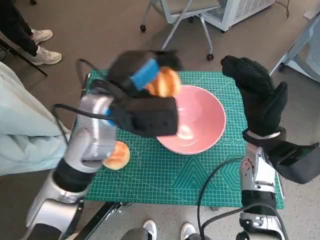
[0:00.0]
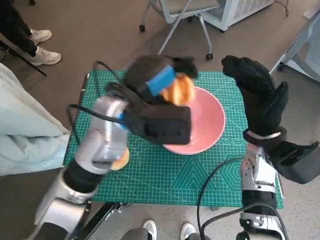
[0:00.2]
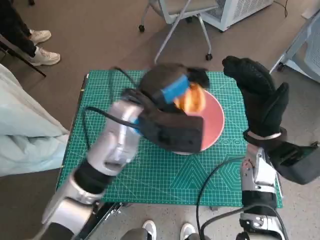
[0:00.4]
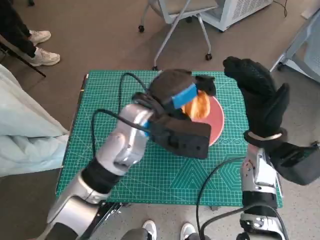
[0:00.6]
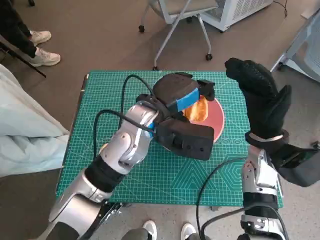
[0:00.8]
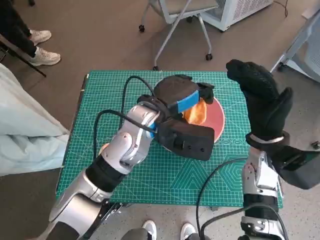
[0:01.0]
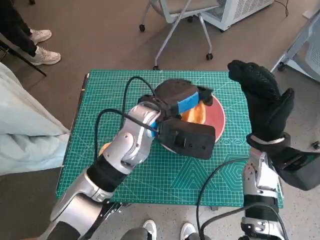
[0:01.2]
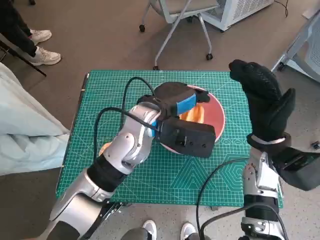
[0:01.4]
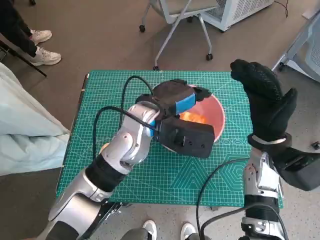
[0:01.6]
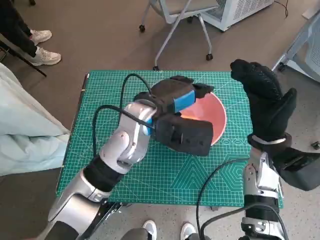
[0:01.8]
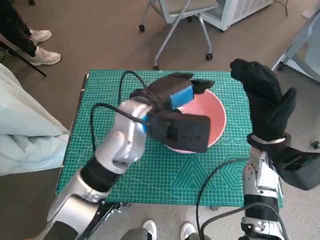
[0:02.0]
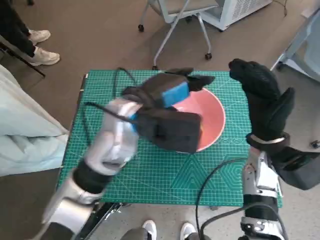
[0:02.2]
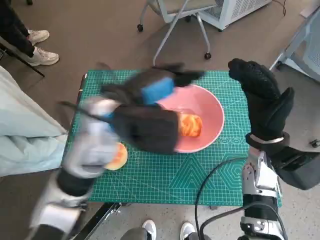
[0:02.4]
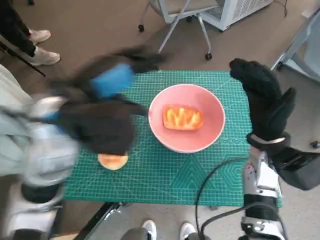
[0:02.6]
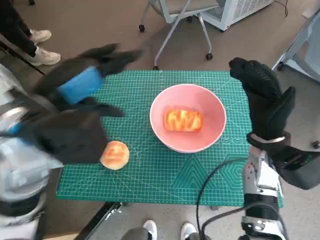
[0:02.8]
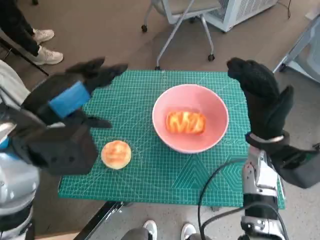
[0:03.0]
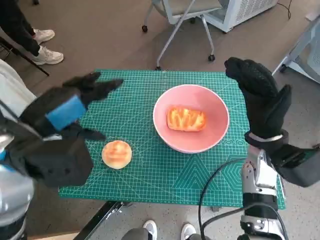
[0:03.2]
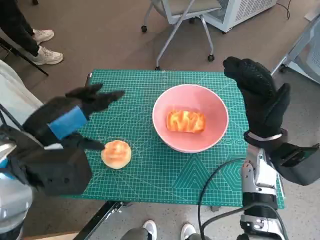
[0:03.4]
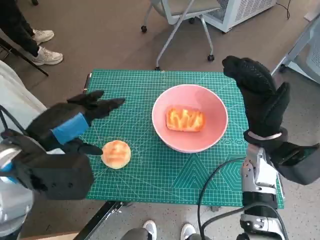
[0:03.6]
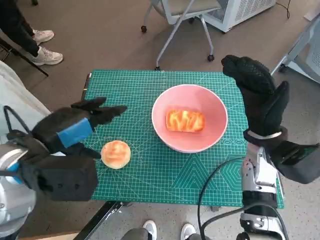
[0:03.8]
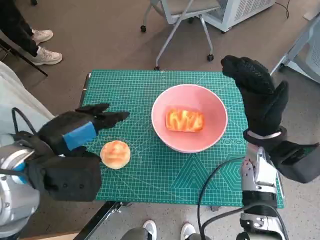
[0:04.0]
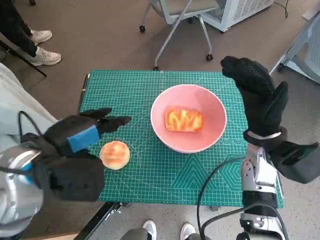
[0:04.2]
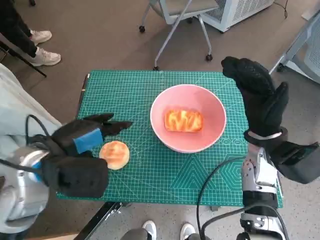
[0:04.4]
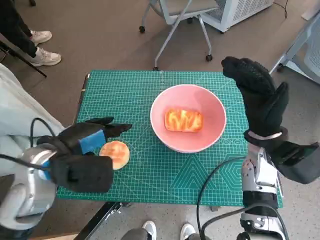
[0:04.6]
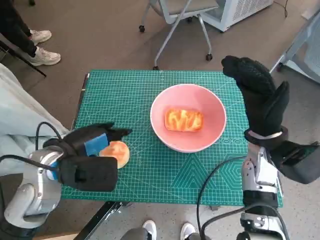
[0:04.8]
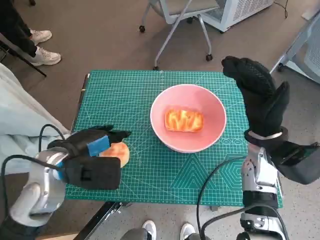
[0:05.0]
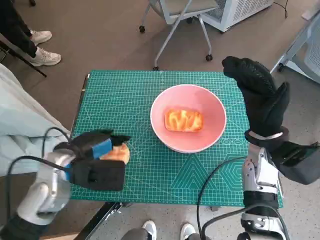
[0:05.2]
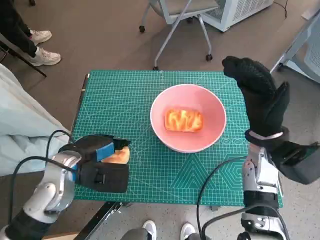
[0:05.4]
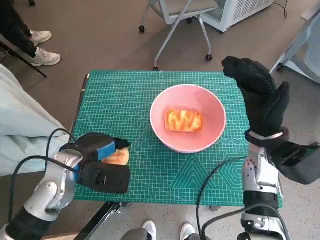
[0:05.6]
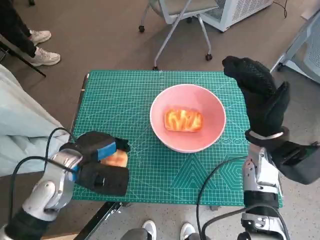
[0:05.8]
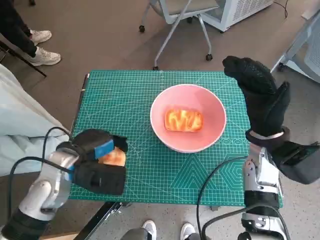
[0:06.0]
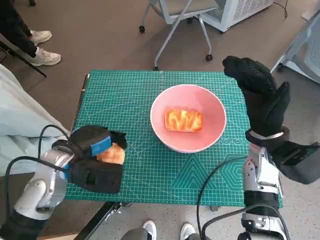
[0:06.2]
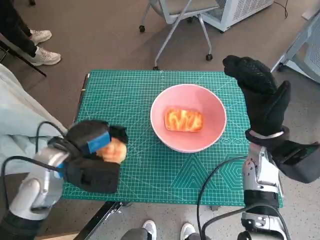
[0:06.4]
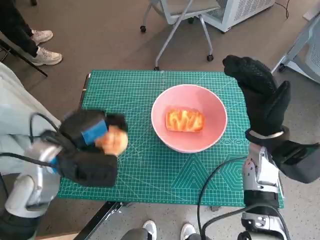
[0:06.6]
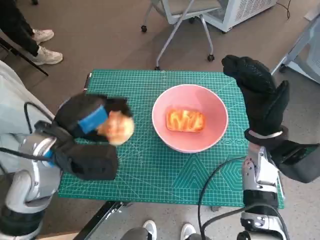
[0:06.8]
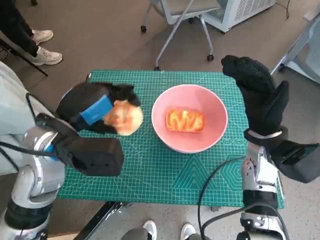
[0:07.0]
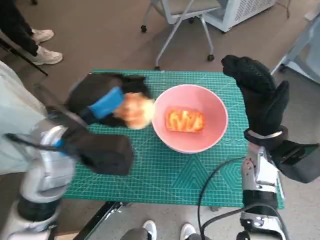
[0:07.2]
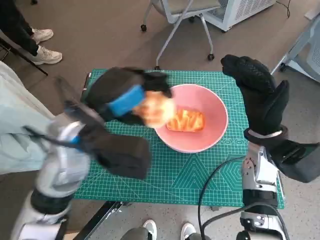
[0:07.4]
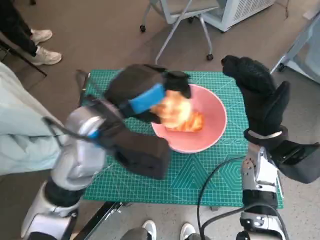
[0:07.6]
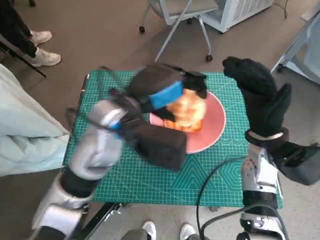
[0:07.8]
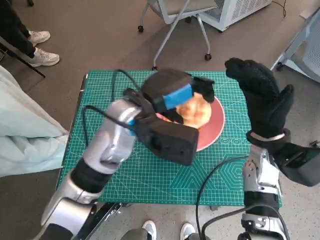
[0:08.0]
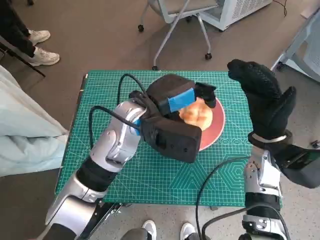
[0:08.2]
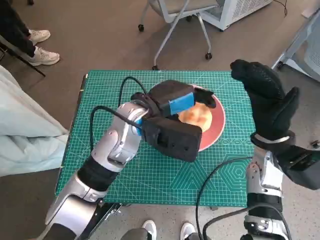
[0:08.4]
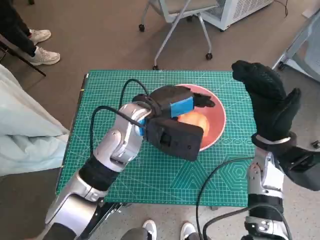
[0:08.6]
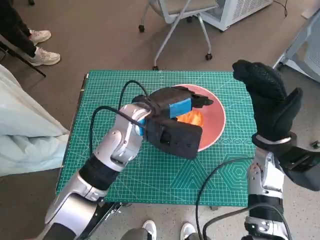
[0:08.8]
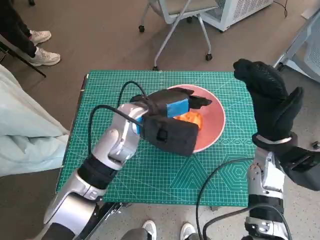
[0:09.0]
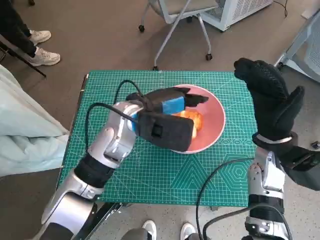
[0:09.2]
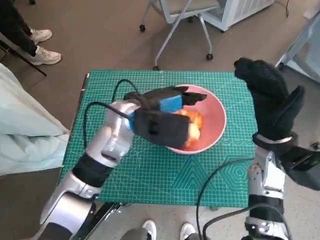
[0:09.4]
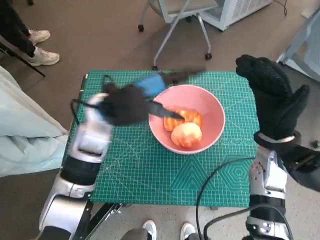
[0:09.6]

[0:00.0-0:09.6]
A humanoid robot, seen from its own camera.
Task of the whole recording: Push the bowl into the center of the table and put the bread into the bowl.
Step, 0:02.0 to 0:05.8: Grasp the round bread with left hand.
0:00.0 to 0:01.6: The left hand travels to the right by about 5 cm.
0:01.6 to 0:03.2: The left hand travels to the left, backward and upward by some 20 cm.
0:03.2 to 0:04.8: The left hand is displaced downward by some 10 cm.
0:04.8 to 0:06.4: The hands make only small movements.
0:06.4 to 0:08.0: The left hand is displaced to the right, upward and forward by about 15 cm.
0:08.0 to 0:09.6: The left hand ends up some 5 cm from where it was.

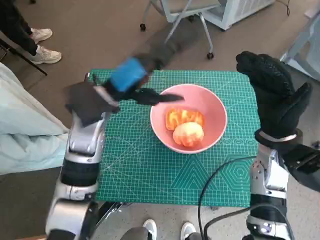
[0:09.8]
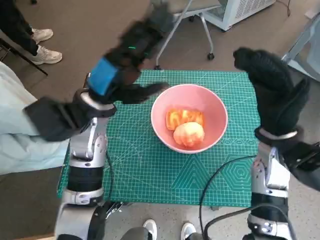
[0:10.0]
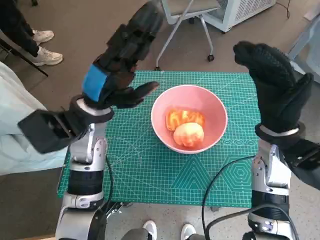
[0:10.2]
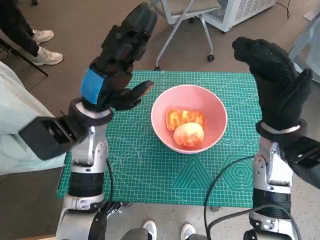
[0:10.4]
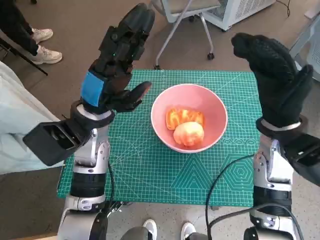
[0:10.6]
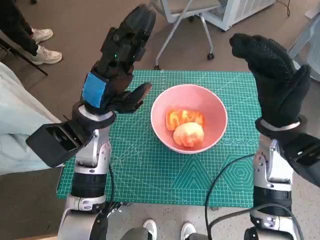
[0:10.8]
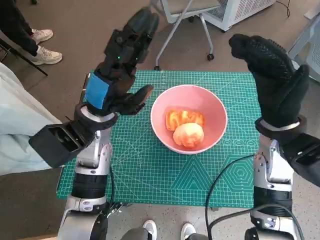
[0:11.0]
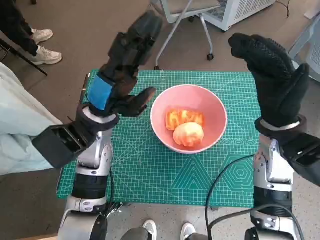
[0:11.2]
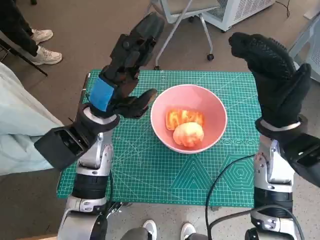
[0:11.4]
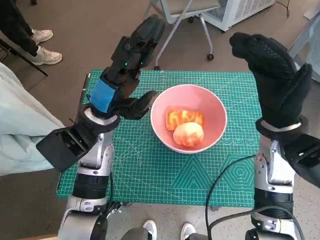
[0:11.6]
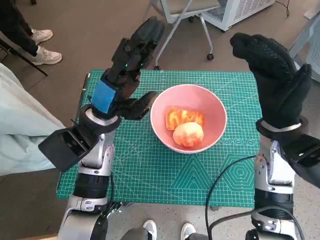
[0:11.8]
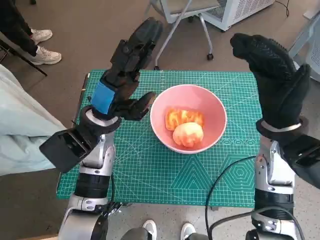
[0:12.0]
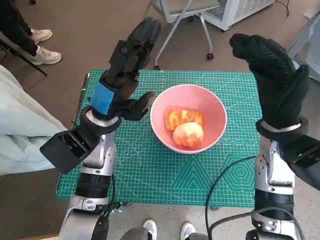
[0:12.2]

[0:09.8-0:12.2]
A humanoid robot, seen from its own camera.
Task of the whole recording: Push the bowl into the center of the table and put the bread into the bowl.
0:11.0 to 0:12.2: The hands move only a little.

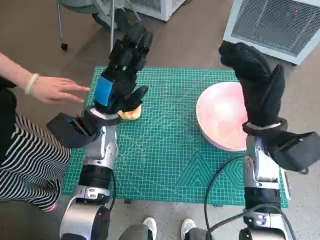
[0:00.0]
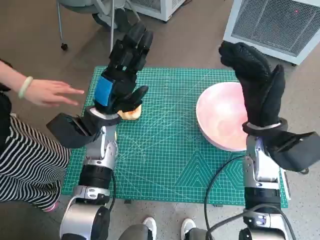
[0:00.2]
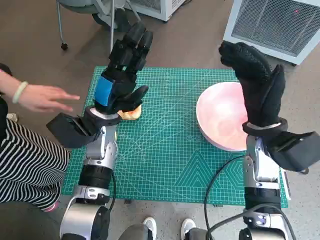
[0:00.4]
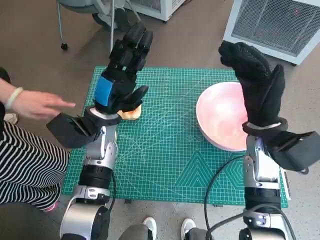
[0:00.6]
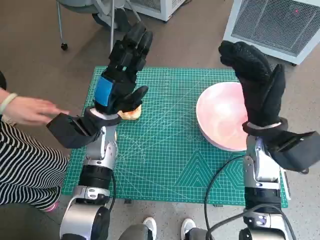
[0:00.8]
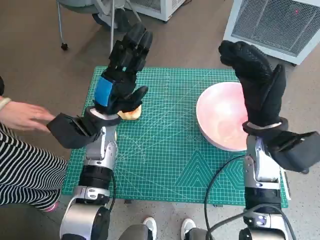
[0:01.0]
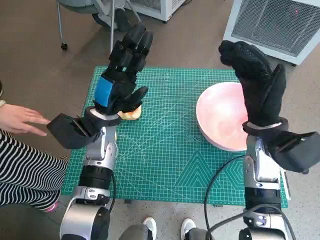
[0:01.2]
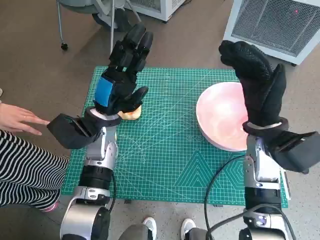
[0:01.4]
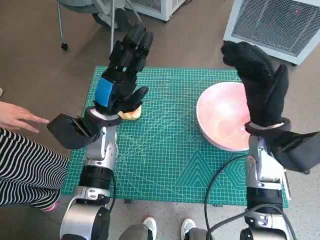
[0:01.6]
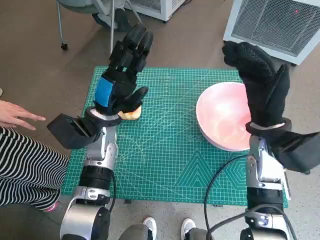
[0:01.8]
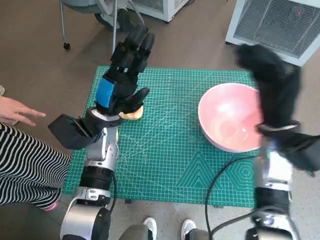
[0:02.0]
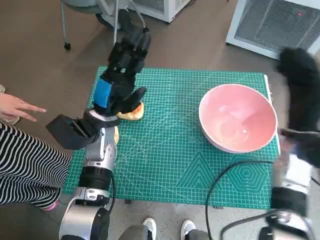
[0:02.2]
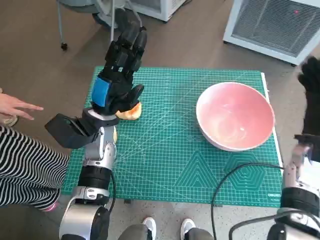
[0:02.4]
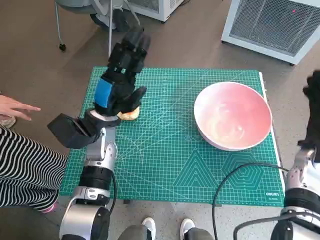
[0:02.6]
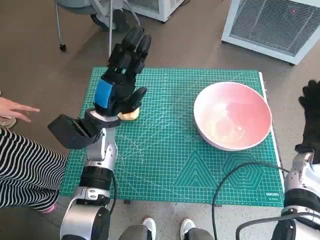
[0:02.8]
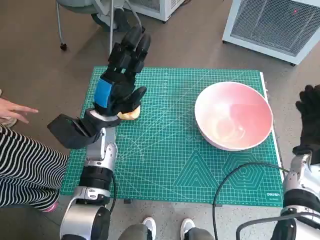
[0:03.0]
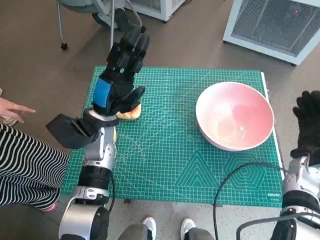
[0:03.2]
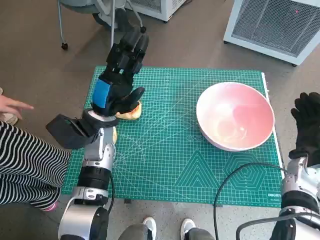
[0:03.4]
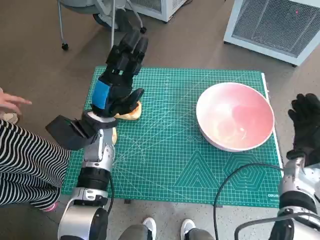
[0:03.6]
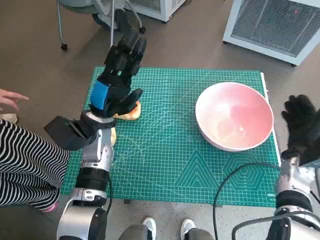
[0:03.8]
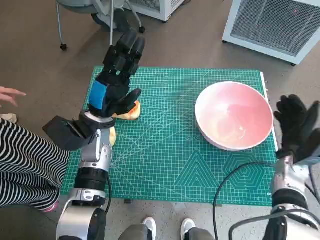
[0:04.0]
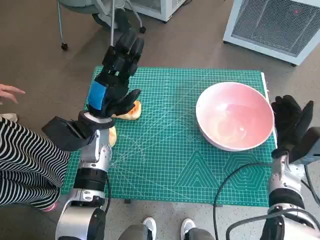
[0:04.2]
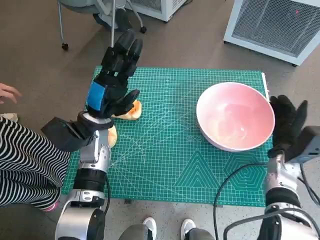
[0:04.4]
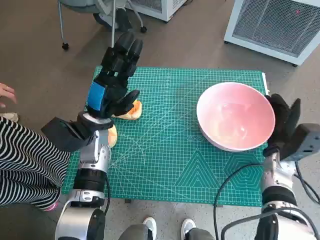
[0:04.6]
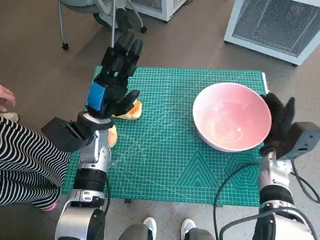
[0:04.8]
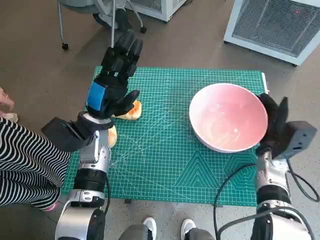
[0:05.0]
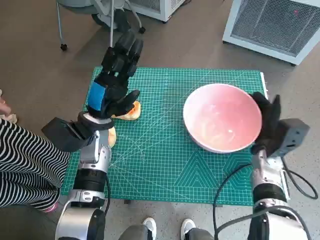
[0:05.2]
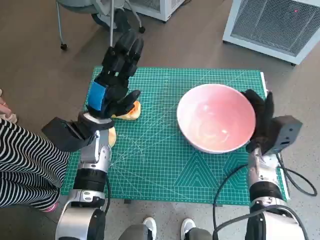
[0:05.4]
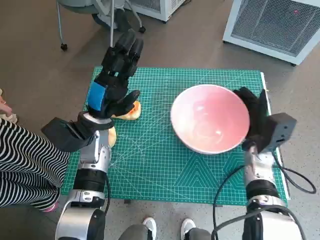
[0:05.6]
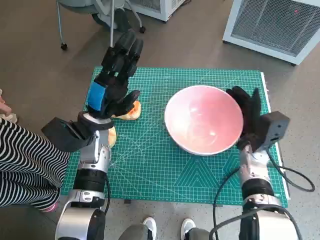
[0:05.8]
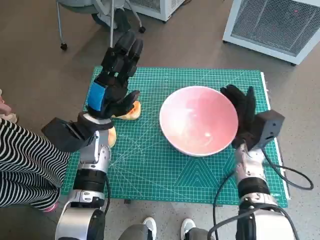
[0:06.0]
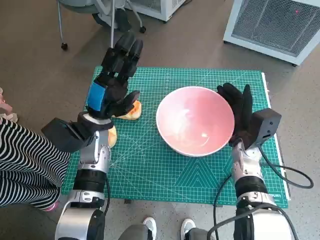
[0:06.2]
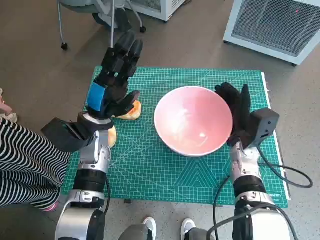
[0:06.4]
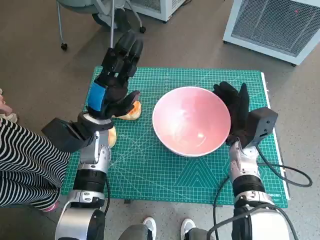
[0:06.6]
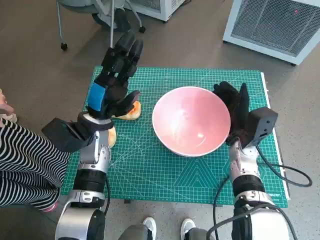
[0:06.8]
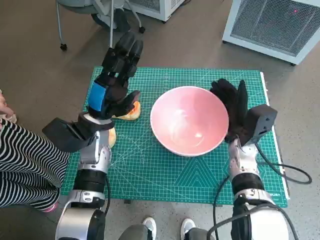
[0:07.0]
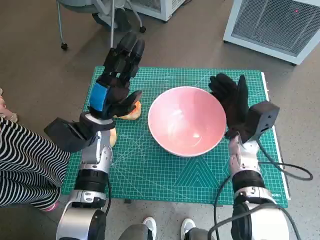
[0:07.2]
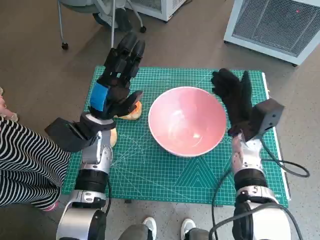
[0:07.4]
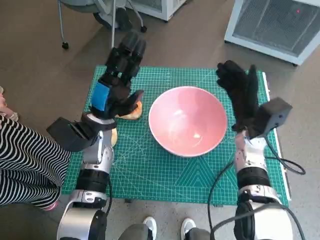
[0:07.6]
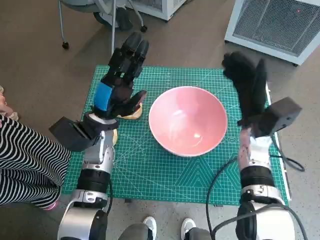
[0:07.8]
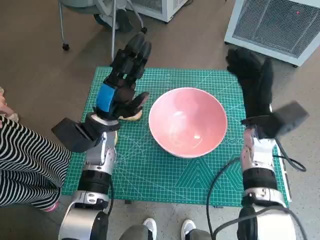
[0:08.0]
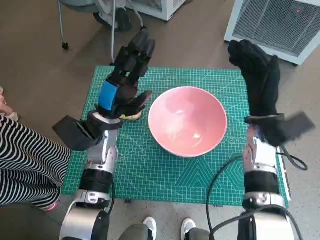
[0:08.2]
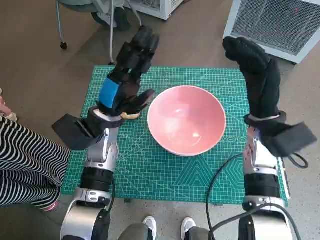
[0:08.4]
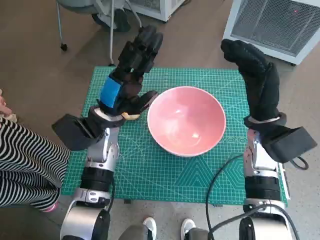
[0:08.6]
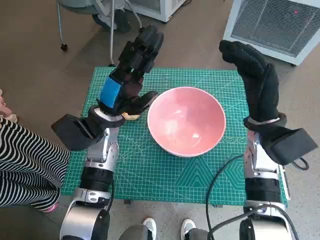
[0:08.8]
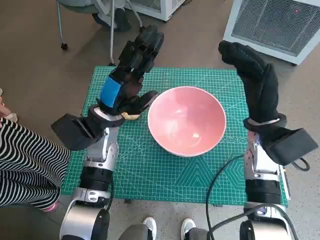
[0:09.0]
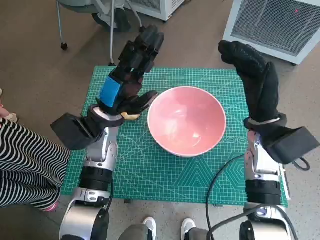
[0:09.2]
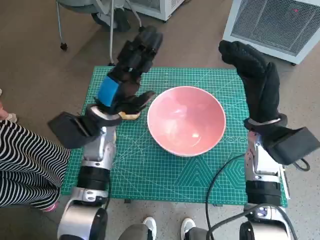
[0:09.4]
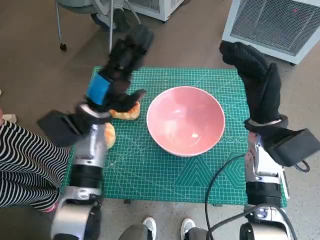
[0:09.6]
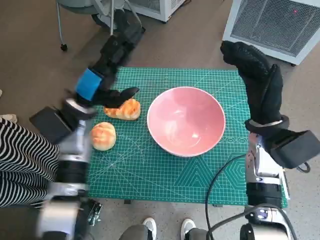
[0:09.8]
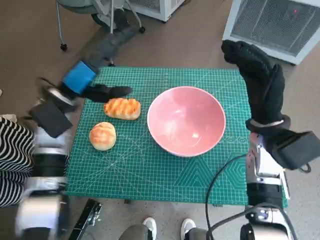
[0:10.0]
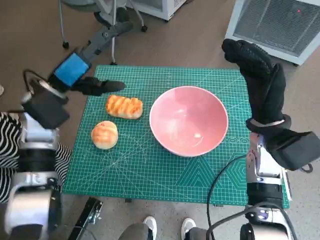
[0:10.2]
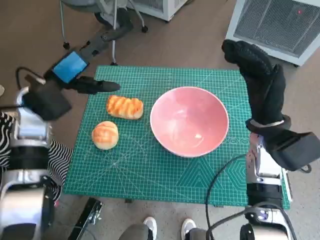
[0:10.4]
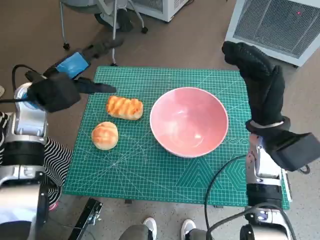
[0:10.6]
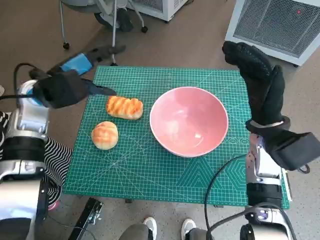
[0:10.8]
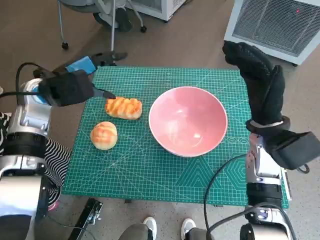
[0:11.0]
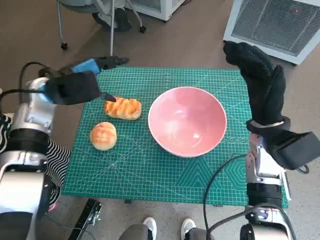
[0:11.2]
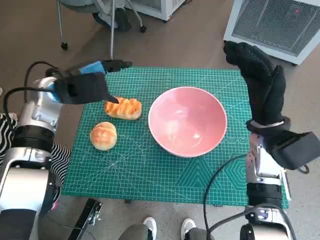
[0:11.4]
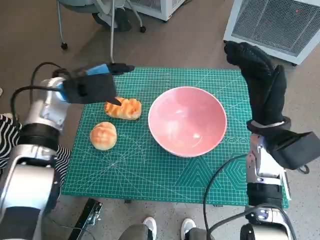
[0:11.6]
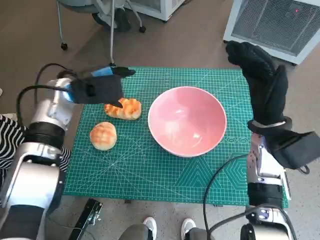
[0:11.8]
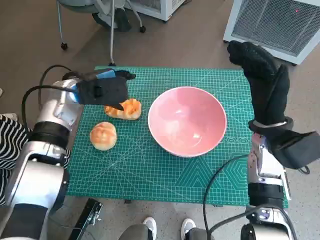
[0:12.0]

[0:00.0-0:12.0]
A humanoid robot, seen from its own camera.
Task of the whole recording: Push the bowl into the center of the table and put the bread into the bowl.
Step, 0:00.0 to 0:07.6: Move the pink bowl to the center of table with right hand.
0:01.6 to 0:03.0: The right hand heads to the right and downward, covering some 15 cm.
0:04.4 to 0:06.0: The right hand moves to the left, about 10 cm.
0:07.6 to 0:09.0: The right hand goes about 5 cm upward.
0:09.0 to 0:10.4: The left hand goes about 10 cm to the left and upward.
0:10.4 to 0:12.0: The left hand ends up about 5 cm from where it was.
